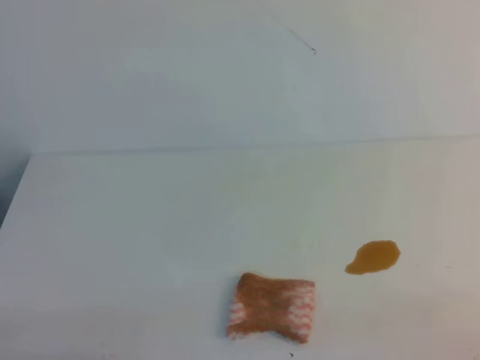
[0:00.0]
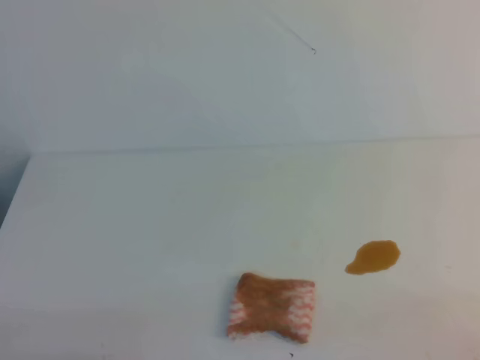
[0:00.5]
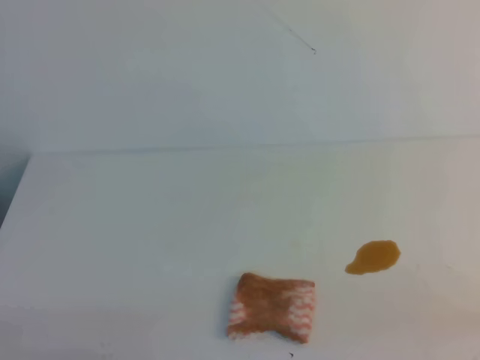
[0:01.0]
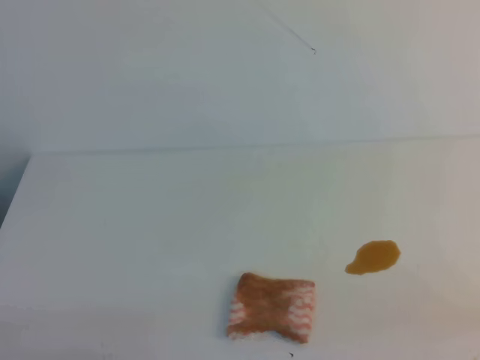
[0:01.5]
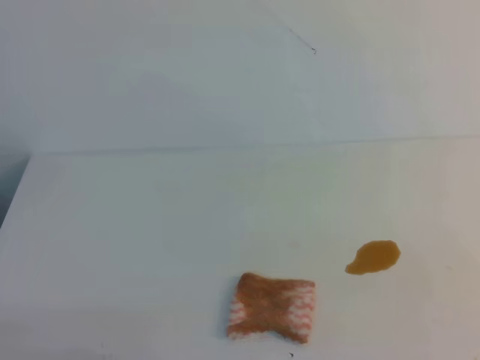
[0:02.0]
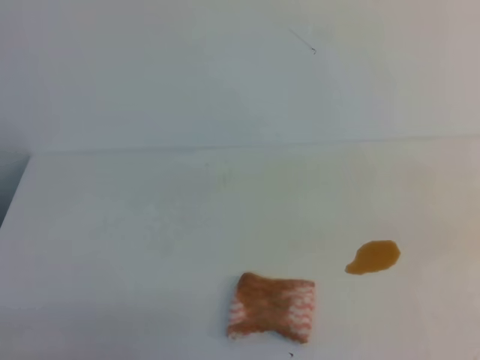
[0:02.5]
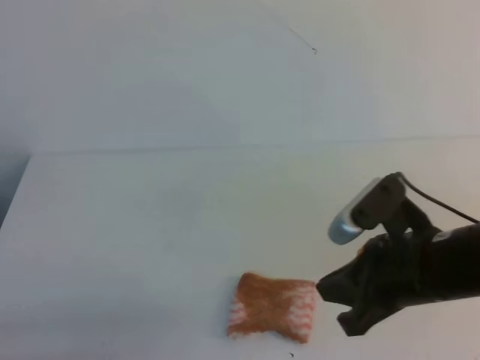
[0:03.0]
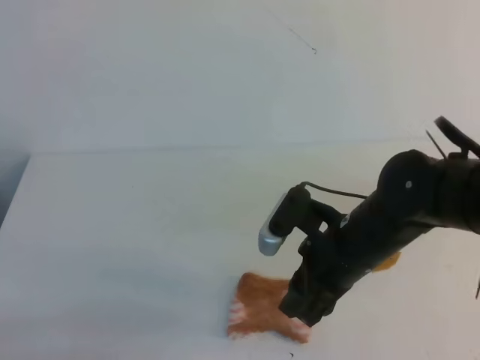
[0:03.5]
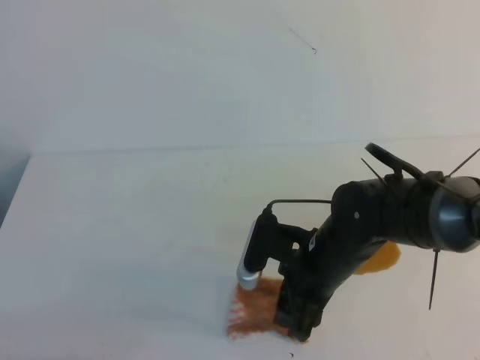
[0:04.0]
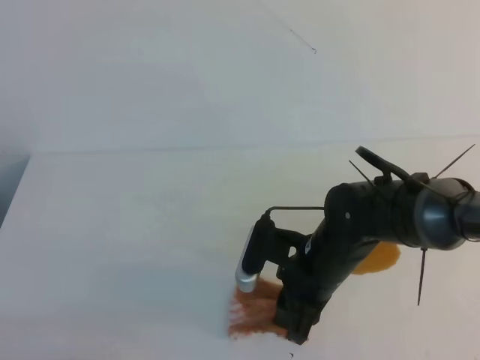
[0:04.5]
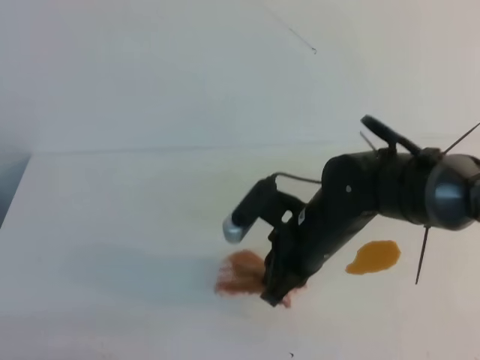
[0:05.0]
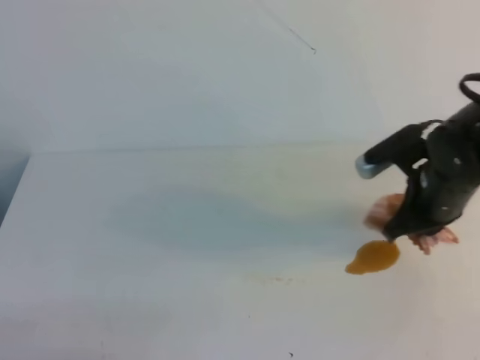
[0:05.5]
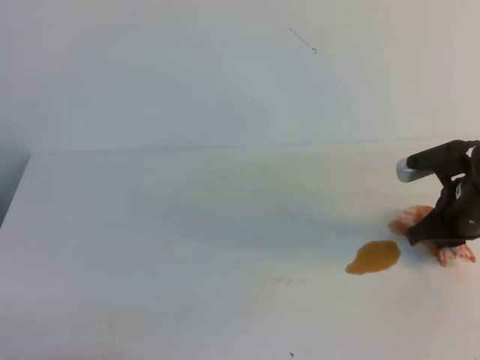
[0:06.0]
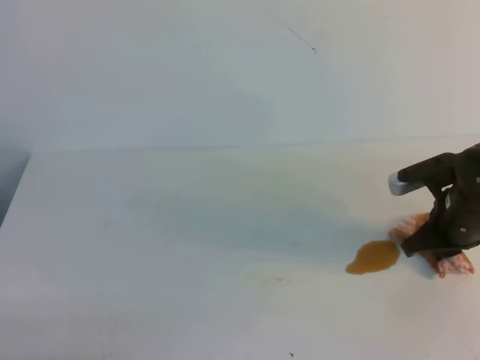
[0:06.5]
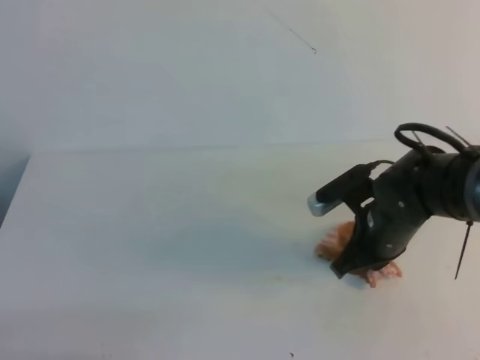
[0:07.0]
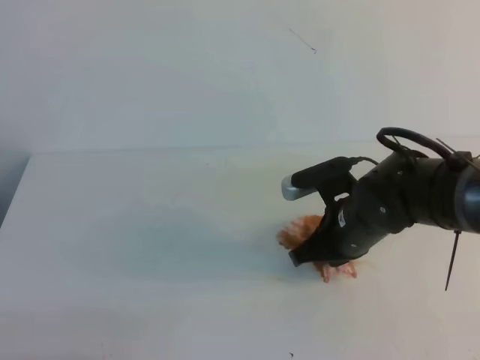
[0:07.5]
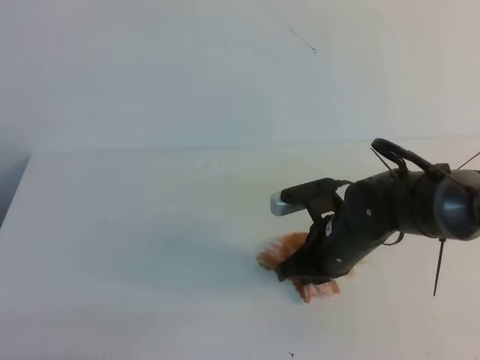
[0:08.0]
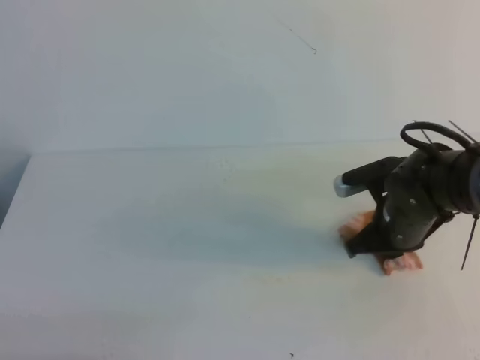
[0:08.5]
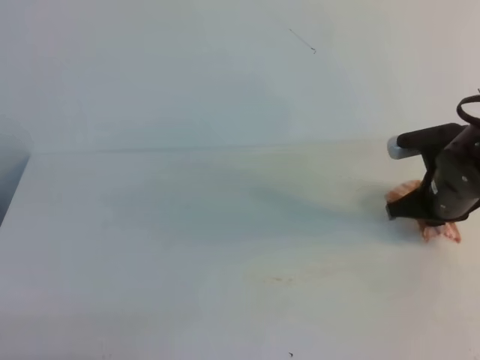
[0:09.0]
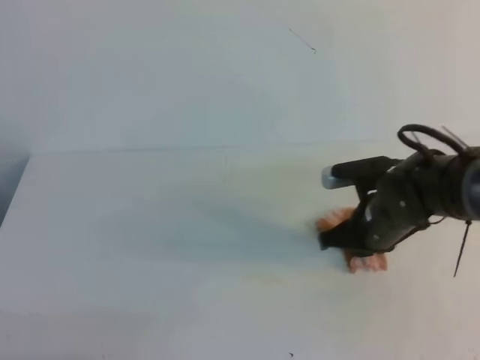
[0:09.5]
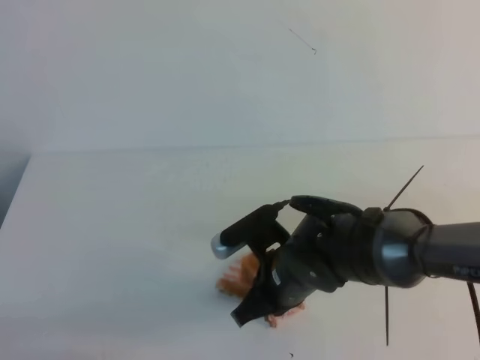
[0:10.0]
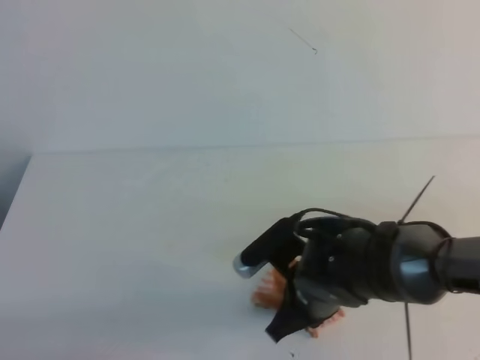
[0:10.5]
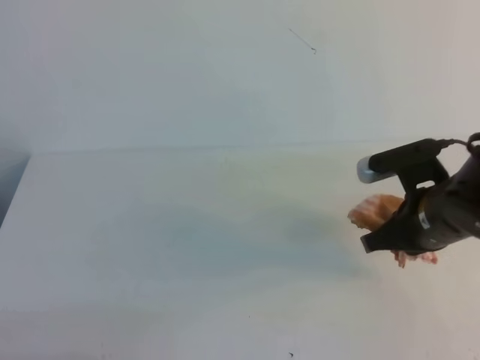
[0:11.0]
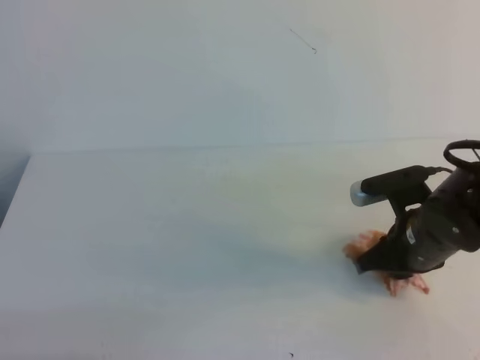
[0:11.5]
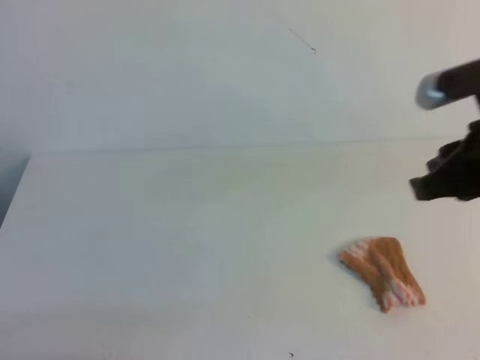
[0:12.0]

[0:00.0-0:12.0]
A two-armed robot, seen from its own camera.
0:02.0 to 0:04.0: The right gripper moves to the left, forward and downward, about 35 cm, and opens up.
0:04.0 to 0:06.0: The right gripper travels to the right by about 15 cm, and closes.
0:06.0 to 0:08.0: The right gripper travels to the left by some 15 cm.
0:08.0 to 0:10.0: The right gripper travels to the right and back again, some 10 cm each way.
0:10.0 to 0:12.0: The right gripper shifts approximately 25 cm upward and to the right, and opens its fingers.

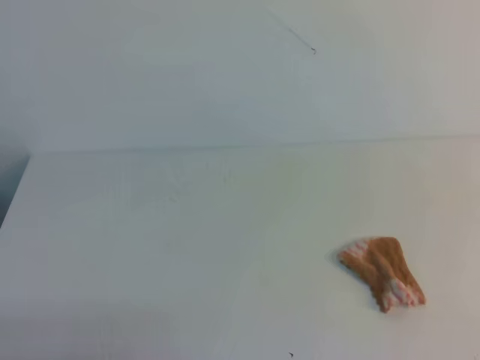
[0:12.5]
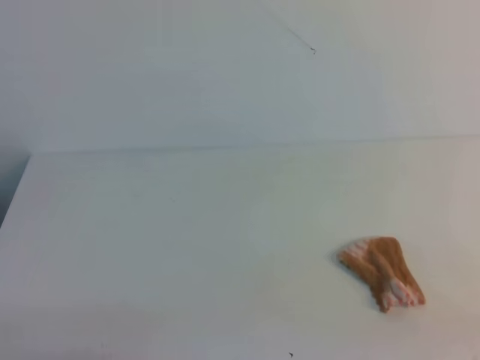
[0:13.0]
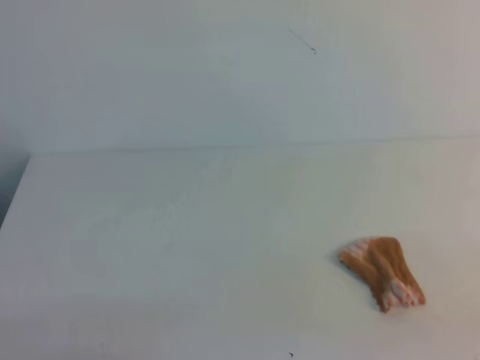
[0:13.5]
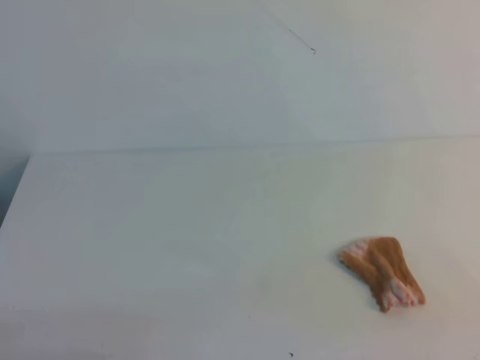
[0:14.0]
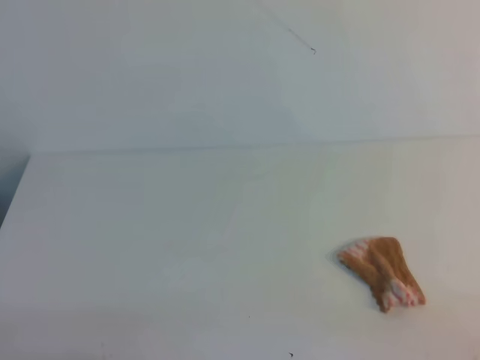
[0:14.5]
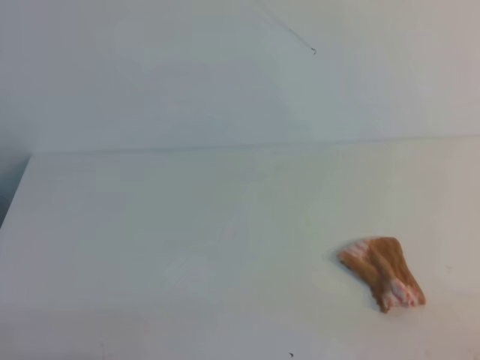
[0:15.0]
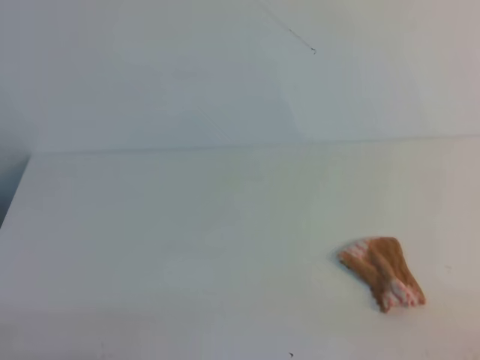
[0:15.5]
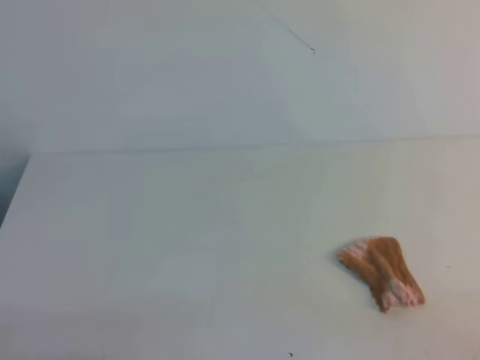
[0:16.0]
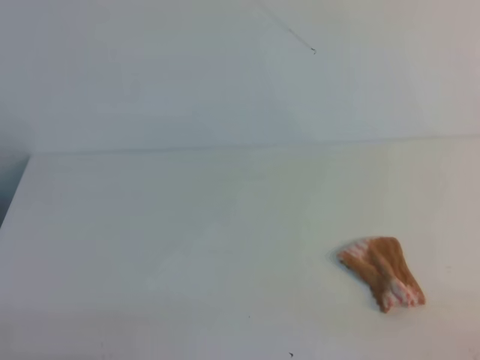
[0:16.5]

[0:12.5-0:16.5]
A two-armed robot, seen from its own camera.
0:14.5 to 0:16.5: Neither gripper changes place.

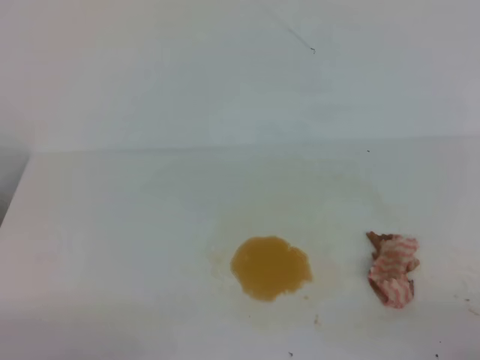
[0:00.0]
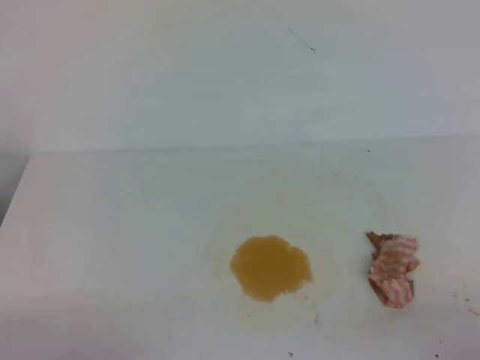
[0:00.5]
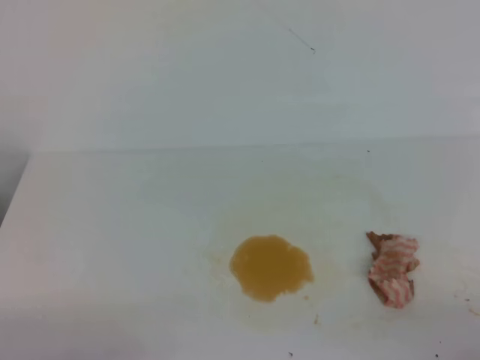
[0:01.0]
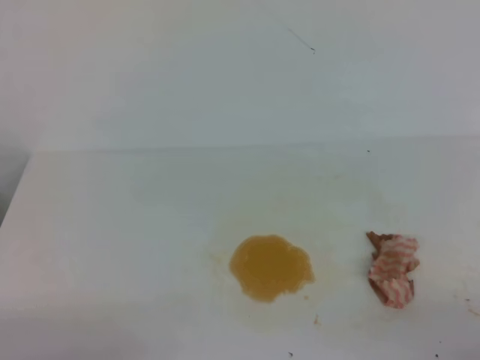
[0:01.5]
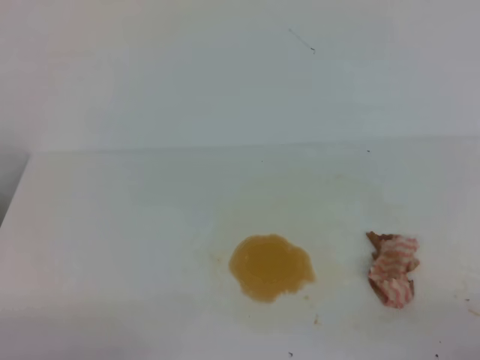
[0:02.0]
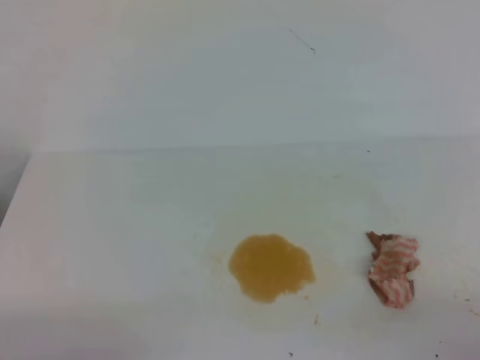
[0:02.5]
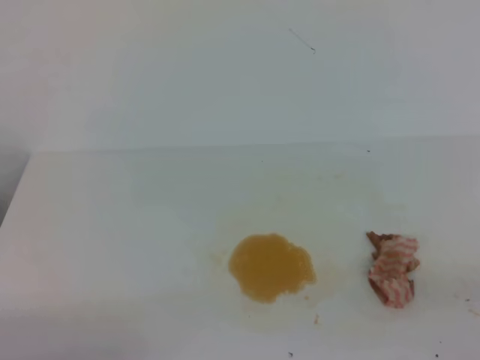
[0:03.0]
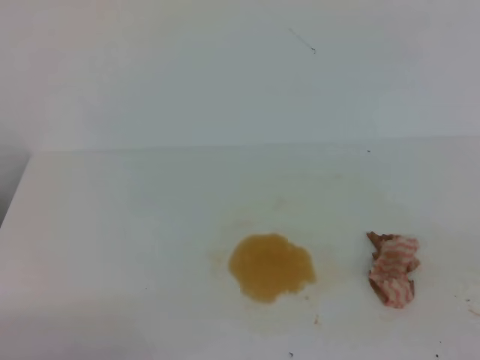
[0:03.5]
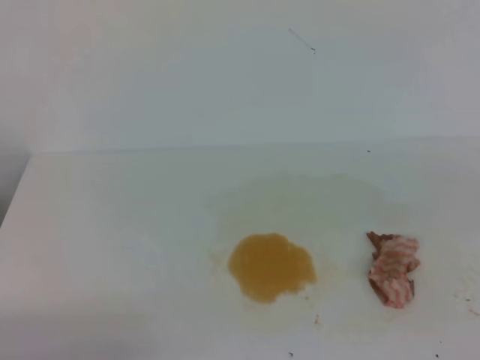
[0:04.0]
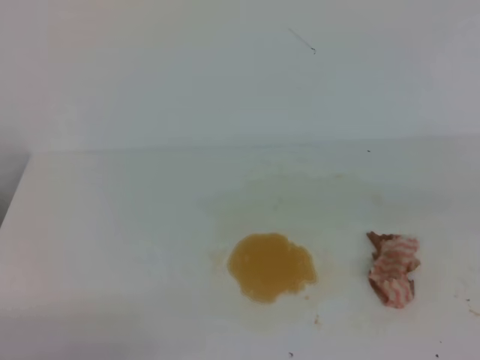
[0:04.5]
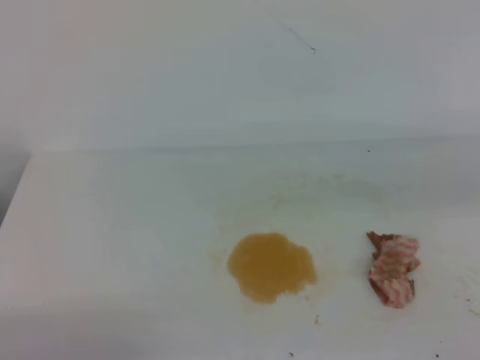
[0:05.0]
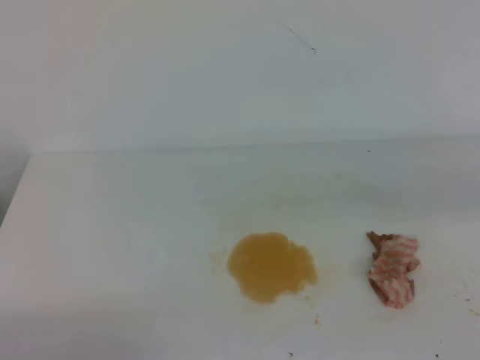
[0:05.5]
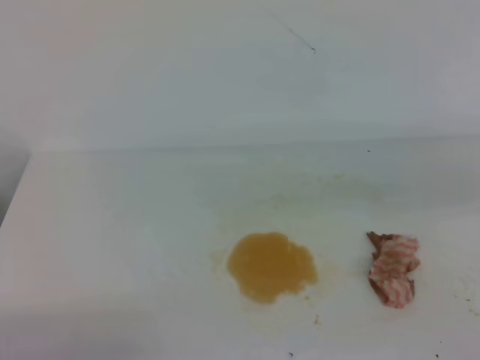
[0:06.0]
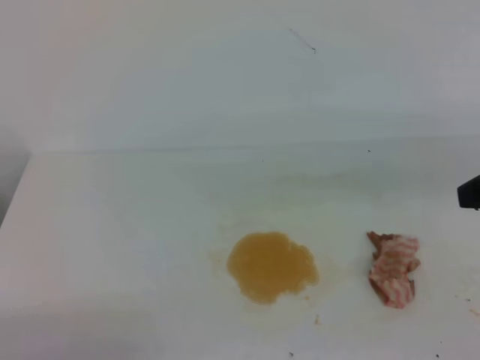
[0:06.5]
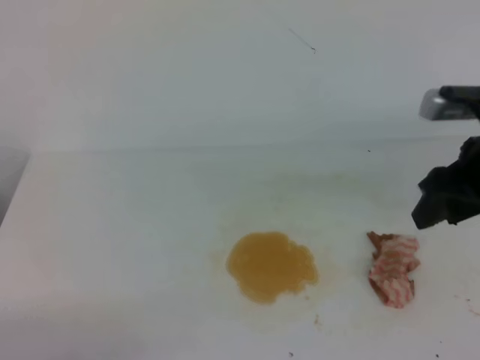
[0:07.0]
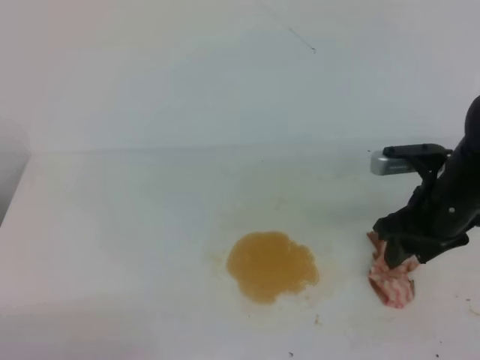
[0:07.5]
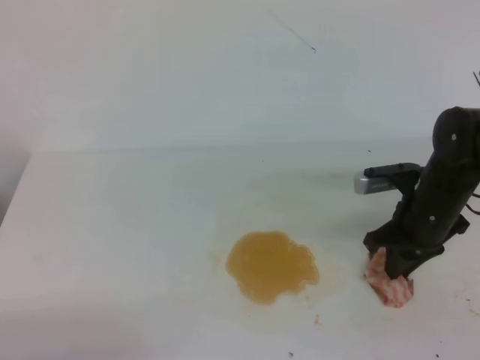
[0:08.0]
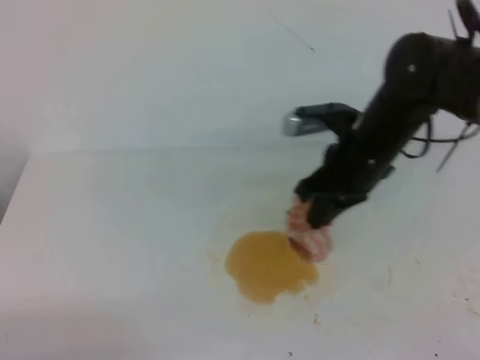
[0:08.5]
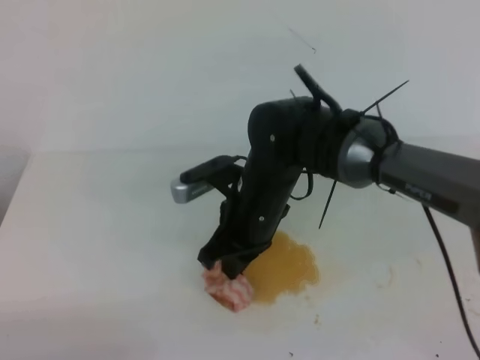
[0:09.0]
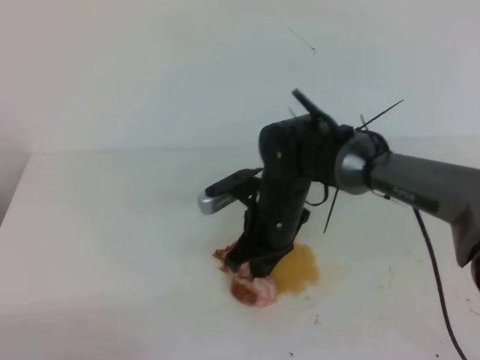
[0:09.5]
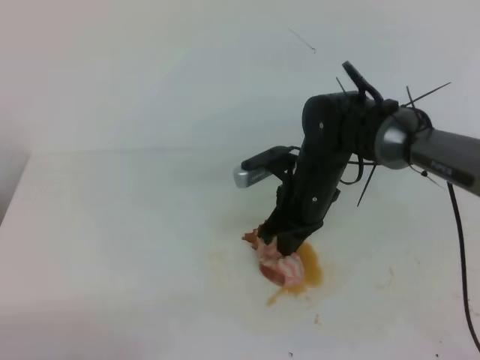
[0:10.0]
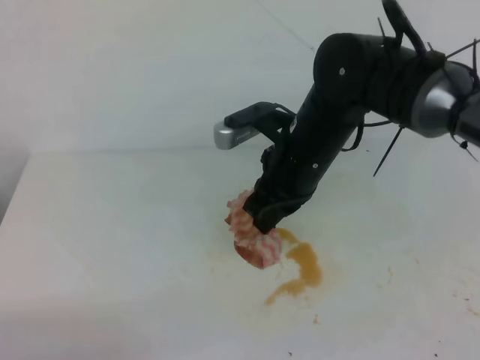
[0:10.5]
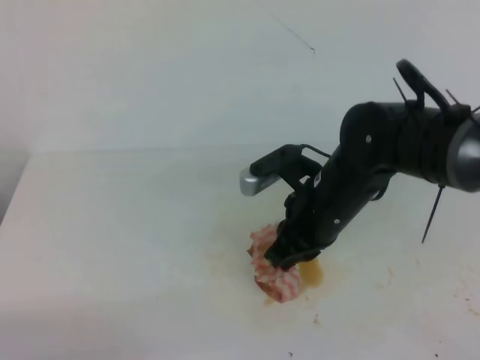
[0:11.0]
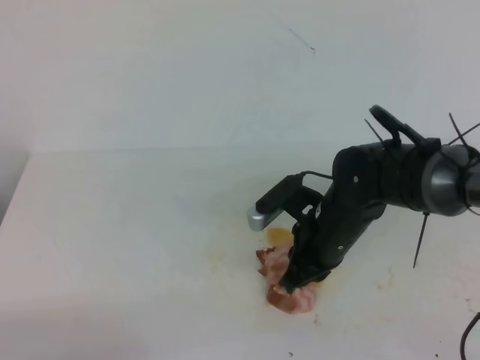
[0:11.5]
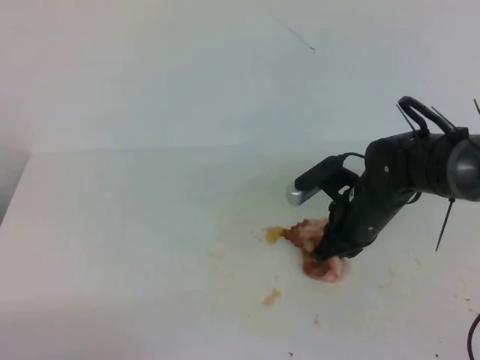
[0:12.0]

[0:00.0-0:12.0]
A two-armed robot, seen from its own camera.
0:00.0 to 0:02.0: Neither gripper changes place.
0:06.0 to 0:08.0: The right gripper travels downward, forward and to the left by some 20 cm, and opens.
0:08.0 to 0:10.0: The right gripper is displaced to the left by some 15 cm, and closes its fingers.
0:10.0 to 0:12.0: The right gripper travels to the right by some 5 cm, and goes upward and returns, approximately 10 cm each way.
